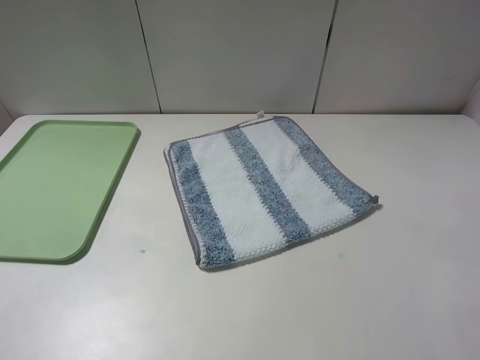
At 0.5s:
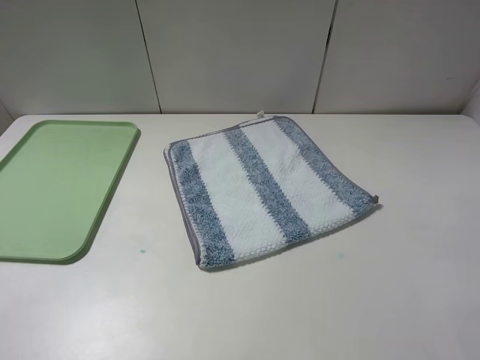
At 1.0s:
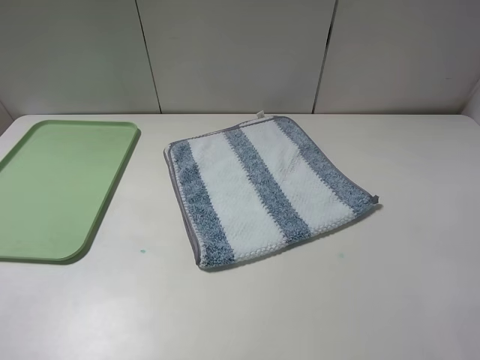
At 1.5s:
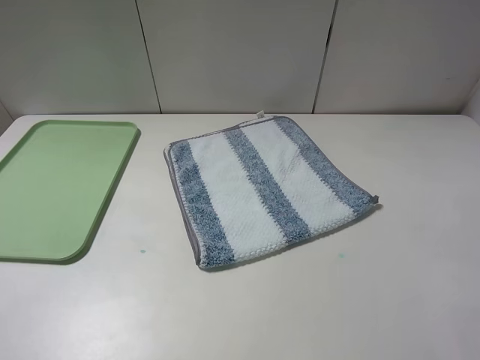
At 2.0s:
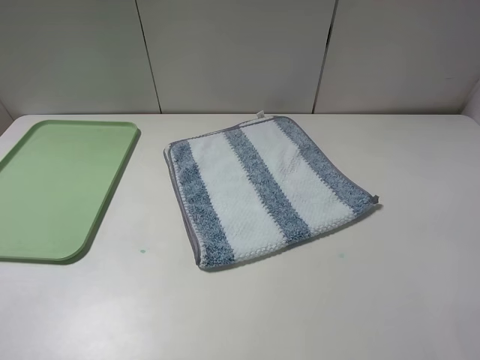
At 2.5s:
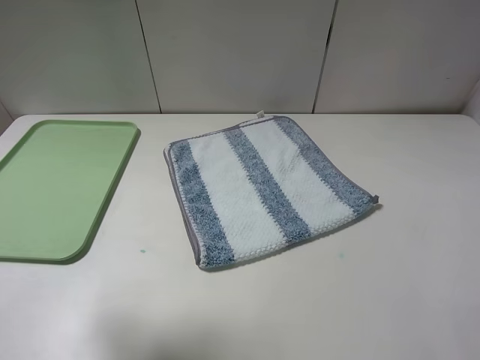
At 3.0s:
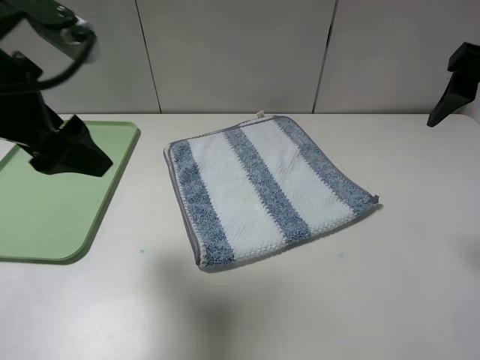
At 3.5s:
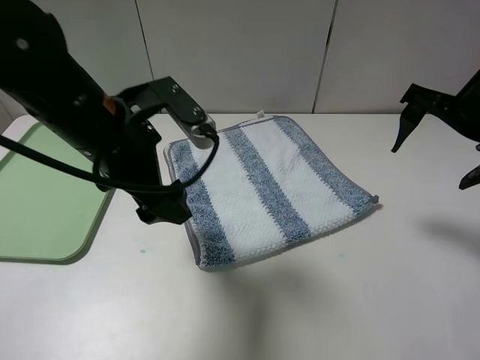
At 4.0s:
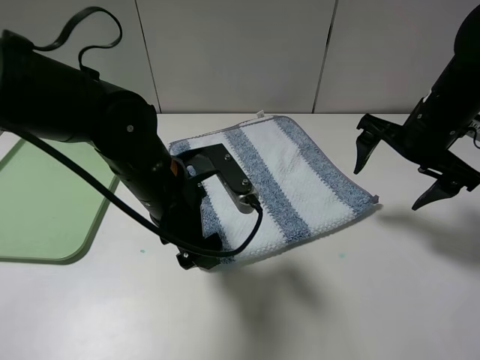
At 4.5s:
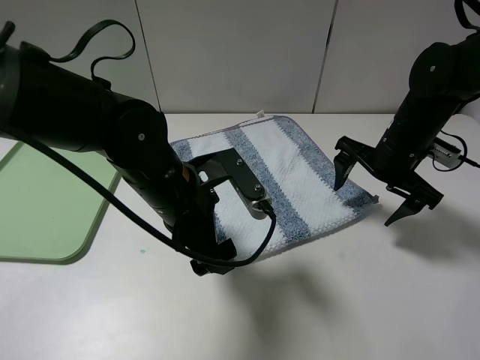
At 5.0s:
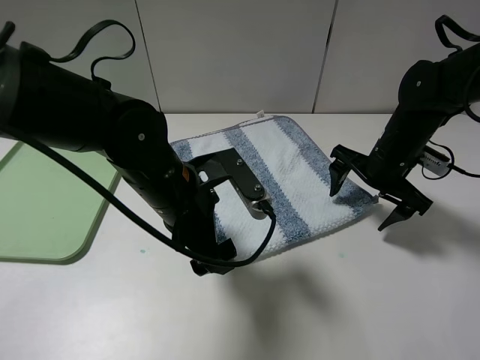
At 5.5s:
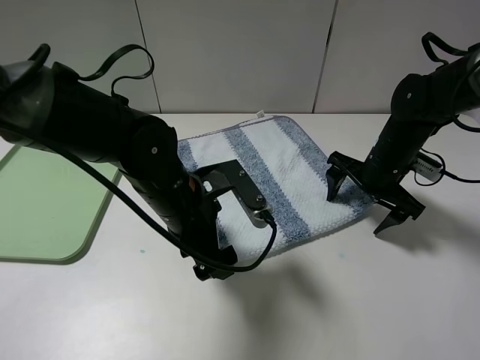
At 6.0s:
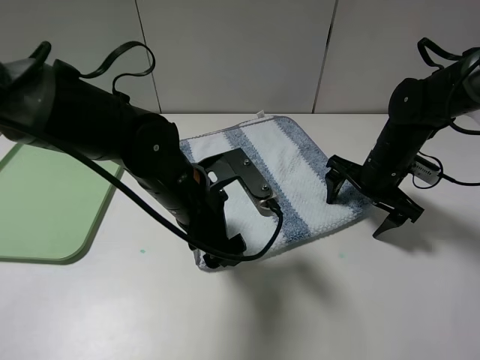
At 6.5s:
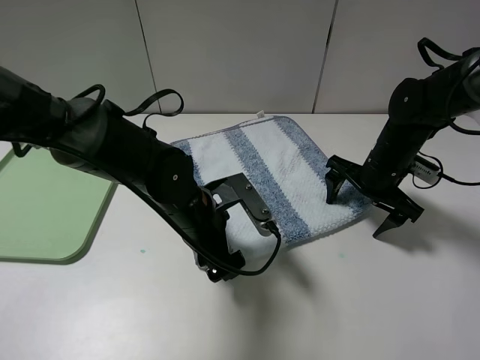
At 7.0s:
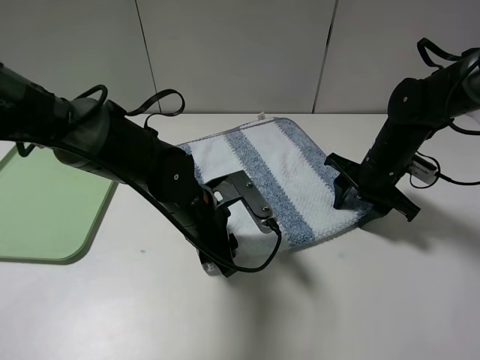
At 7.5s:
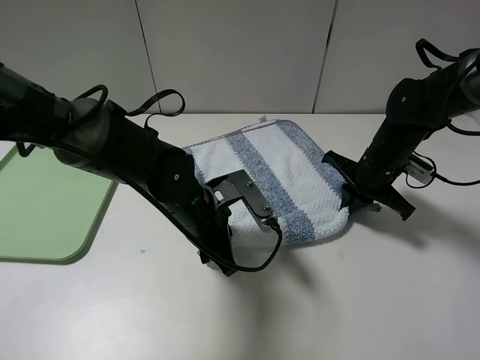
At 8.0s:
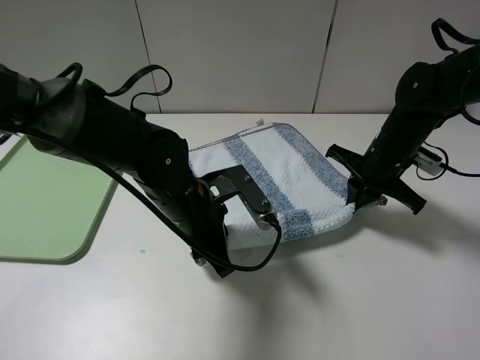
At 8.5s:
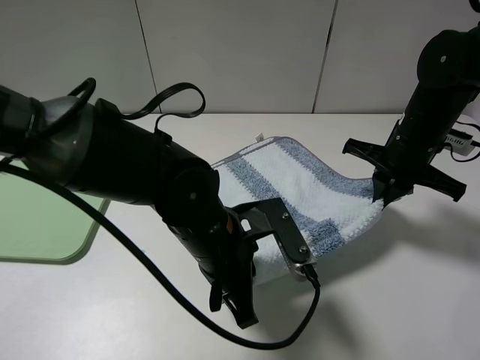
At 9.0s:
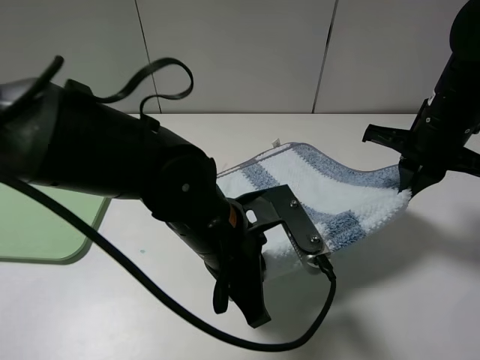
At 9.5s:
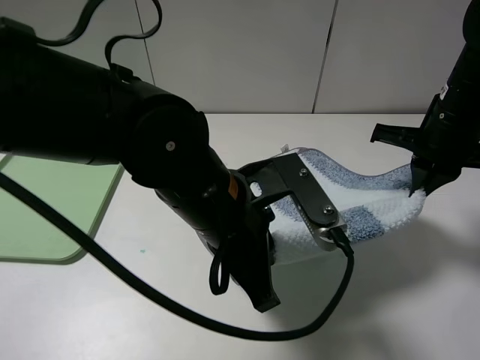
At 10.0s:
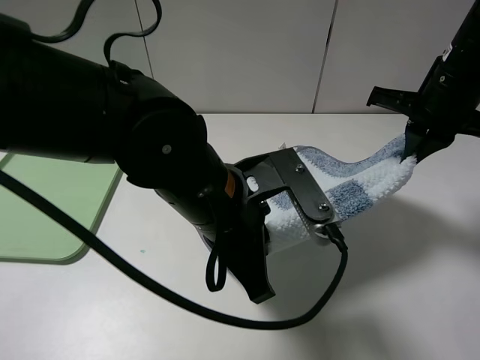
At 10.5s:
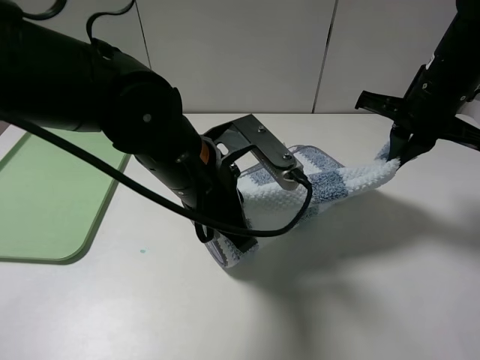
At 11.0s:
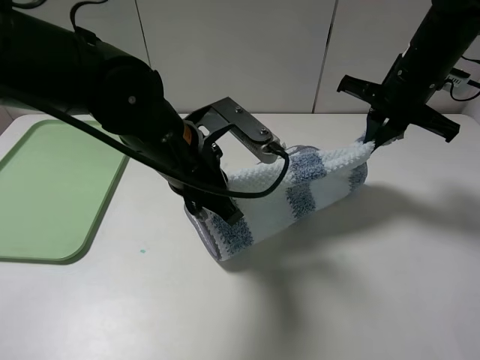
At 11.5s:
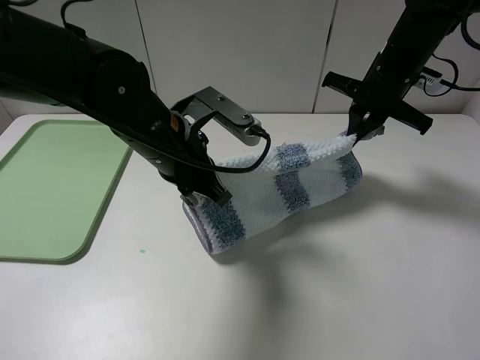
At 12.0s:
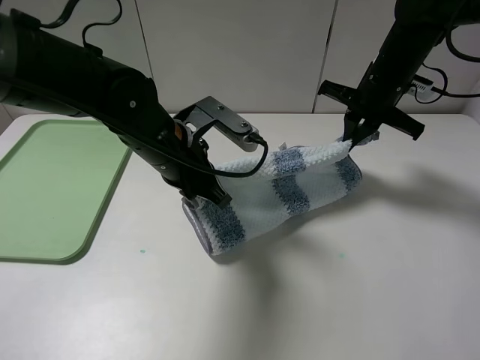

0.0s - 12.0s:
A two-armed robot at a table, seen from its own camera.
Step, 0.0s - 7.0s: Grasp the blue white towel with the left gripper.
2.0s - 4.0s: The right gripper heads forward and downward, covering roughly 30 cm, while the left gripper moves to the right, forward and downward, about 35 cm.
4.0s - 6.0s: The right gripper goes roughly 10 cm downward.
6.0s - 8.0s: The right gripper closes, while the left gripper closes up.
8.0s - 10.0s: The left gripper is displaced upward and backward by some 10 cm. Meanwhile the right gripper is displaced upward by some 15 cm.
10.0s - 12.0s: The right gripper moves forward, approximately 10 cm; the left gripper shifts about 10 cm forward and to the left.

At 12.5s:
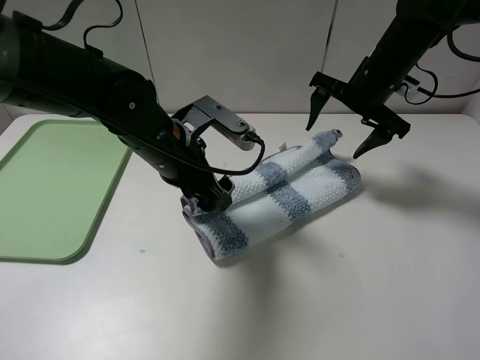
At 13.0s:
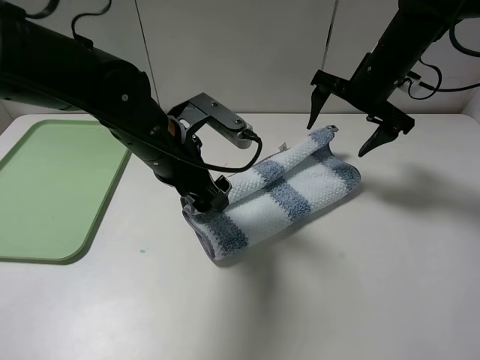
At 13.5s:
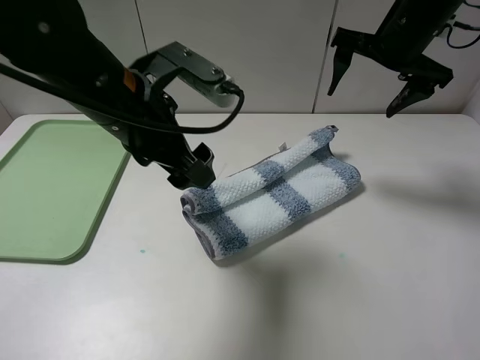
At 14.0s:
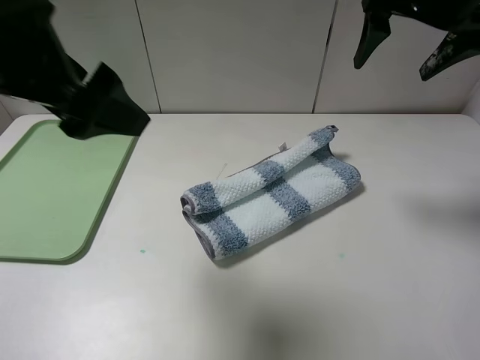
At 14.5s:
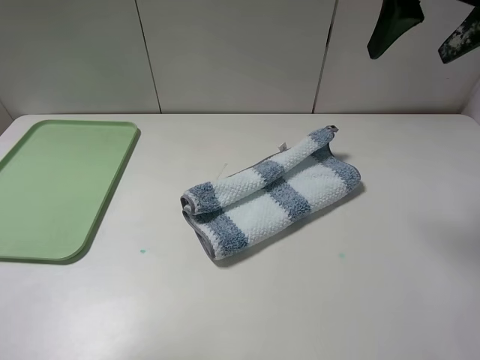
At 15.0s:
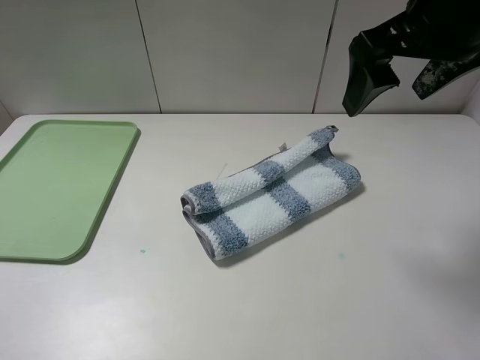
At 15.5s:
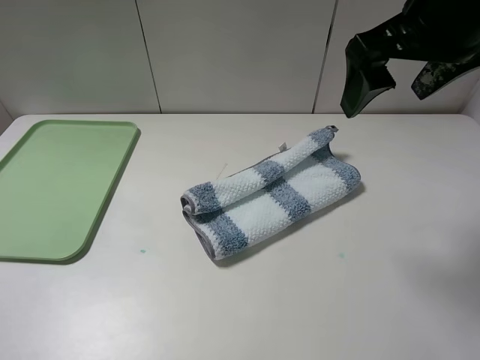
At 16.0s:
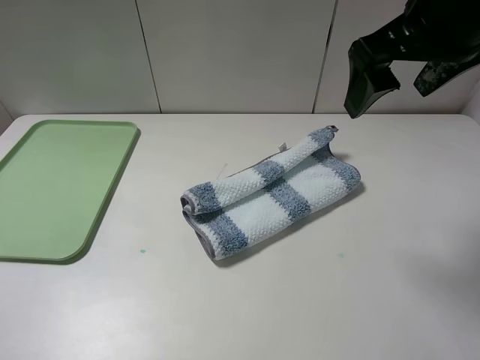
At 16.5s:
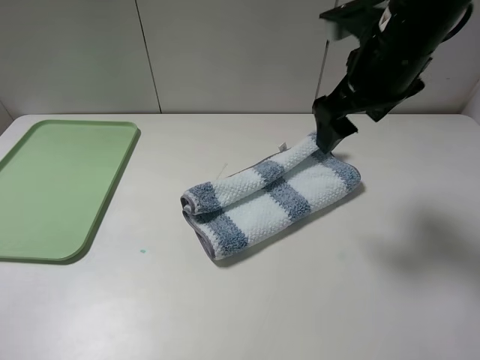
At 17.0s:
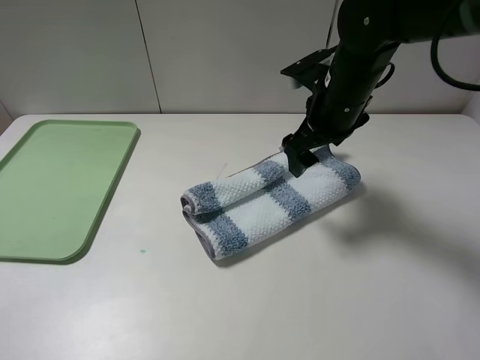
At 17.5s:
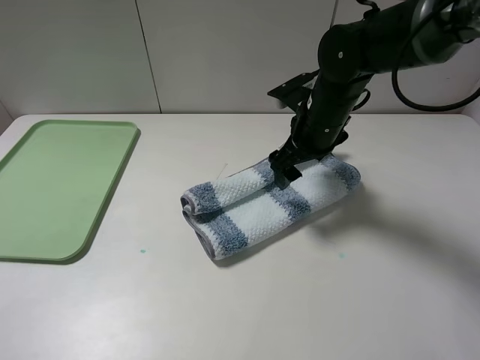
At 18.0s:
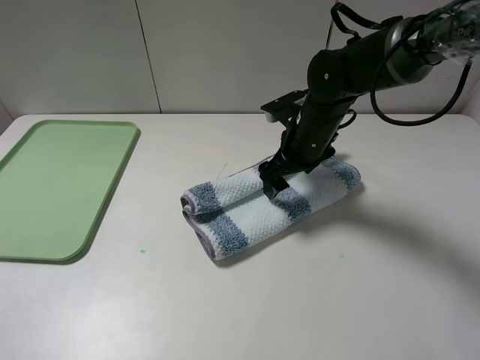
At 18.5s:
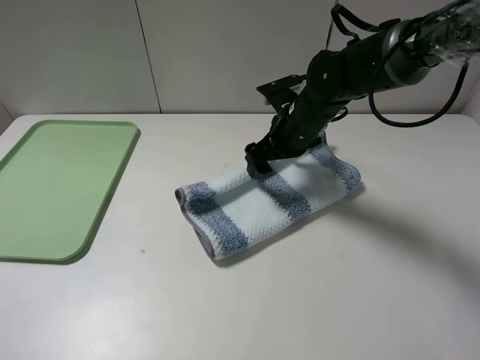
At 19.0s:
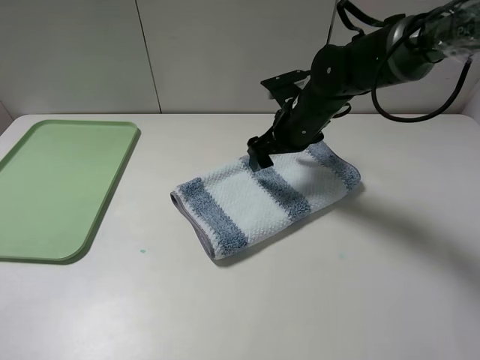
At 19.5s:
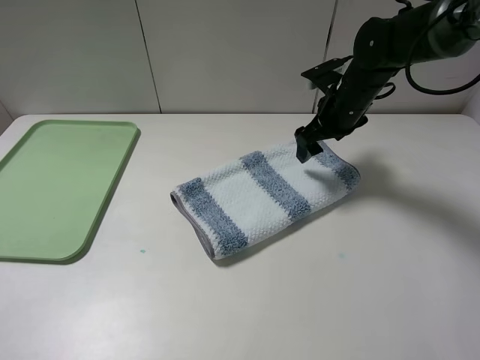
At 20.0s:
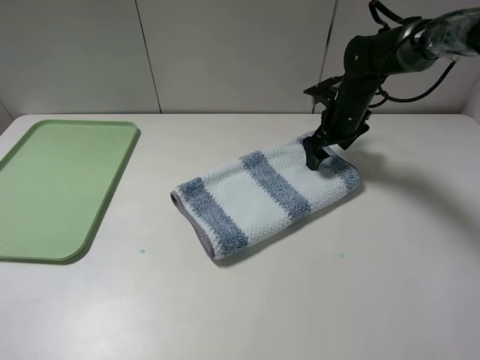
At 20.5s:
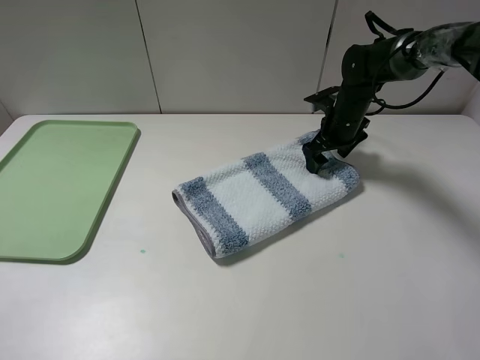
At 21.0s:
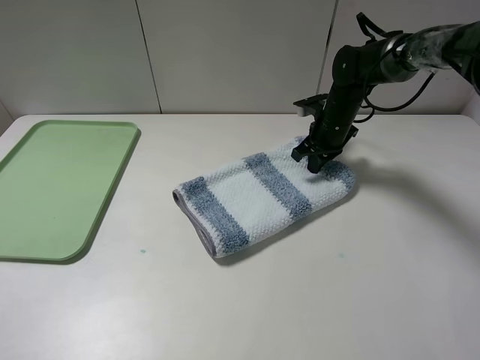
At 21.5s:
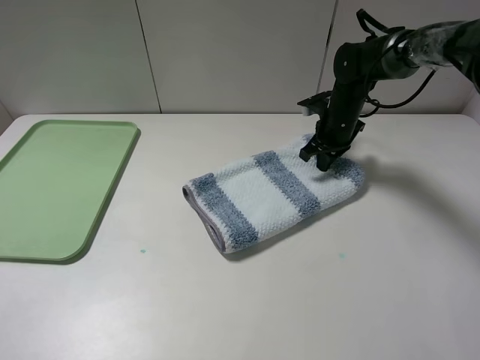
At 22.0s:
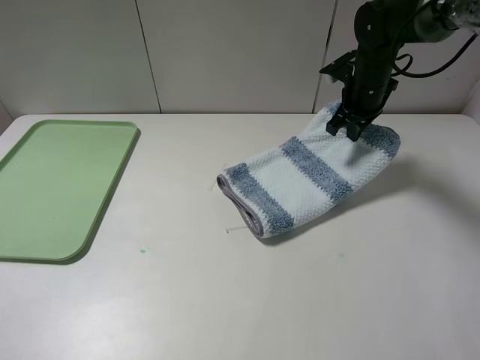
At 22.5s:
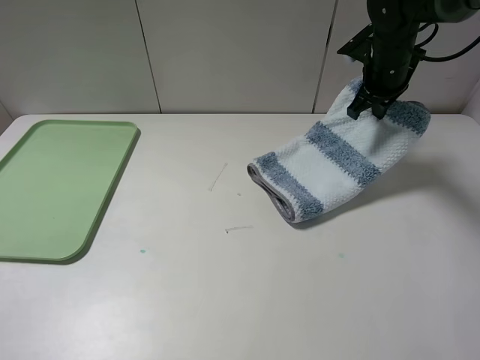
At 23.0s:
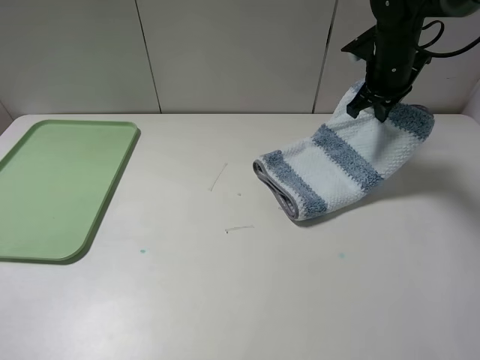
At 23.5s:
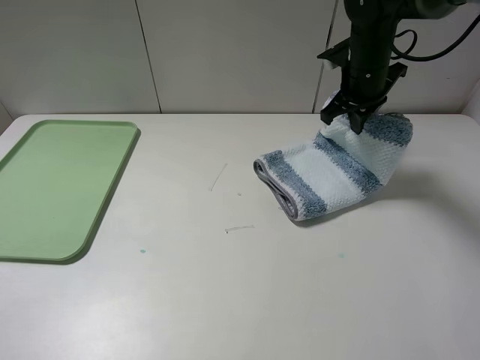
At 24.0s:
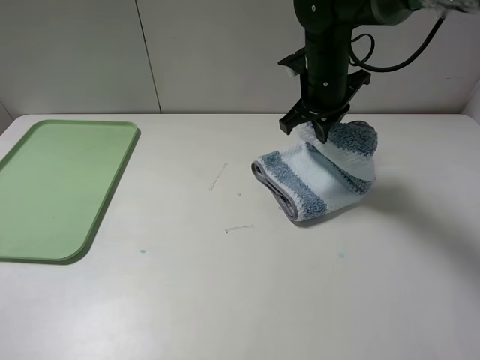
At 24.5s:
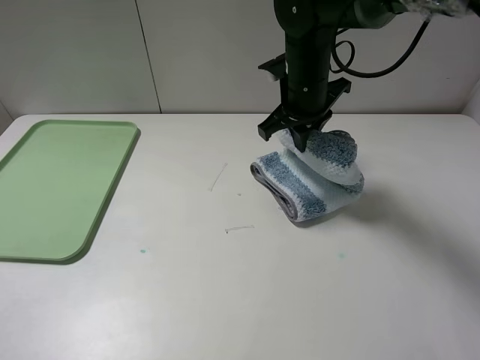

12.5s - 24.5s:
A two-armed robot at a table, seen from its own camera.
Step, 14.0s - 21.0s: Grasp the blue white towel with the right gripper.
12.5s - 14.5s: The right gripper travels upward and backward by some 20 cm; the left gripper shifts about 35 cm upward, backward and to the left.
14.5s - 16.5s: The right gripper shifts some 10 cm downward and to the left.
16.5s - 18.5s: The right gripper goes about 15 cm downward and forward.
18.5s - 20.5s: The right gripper goes approximately 15 cm to the right, forward and downward.
20.5s - 22.5s: The right gripper travels upward by approximately 10 cm, and closes up.
22.5s - 24.5s: The right gripper heads to the left and backward, covering approximately 15 cm, and opens.

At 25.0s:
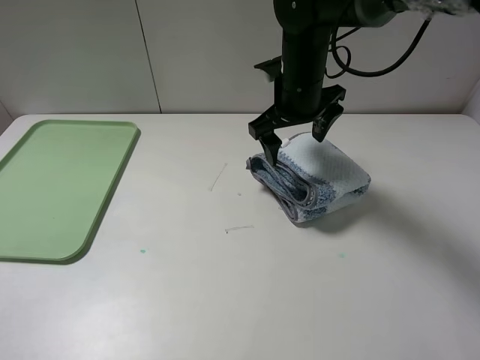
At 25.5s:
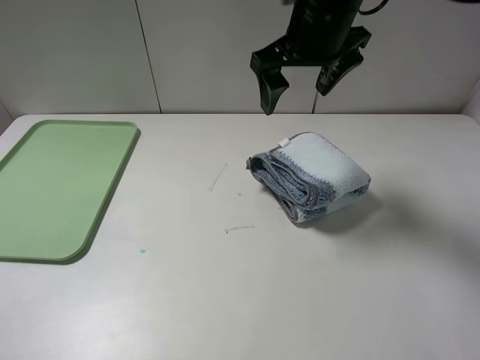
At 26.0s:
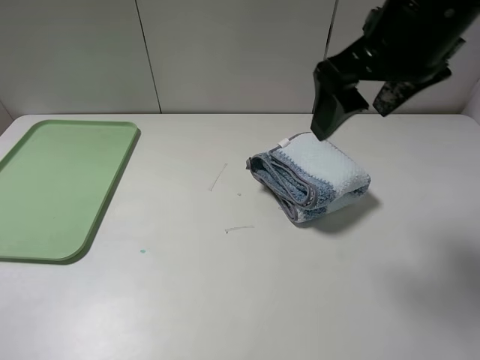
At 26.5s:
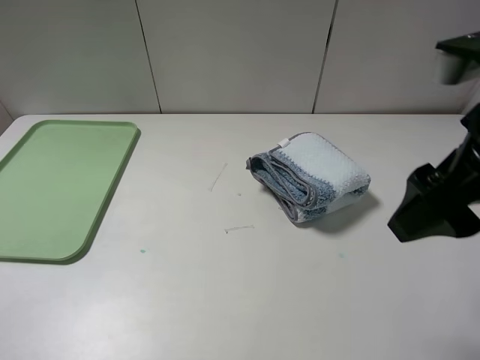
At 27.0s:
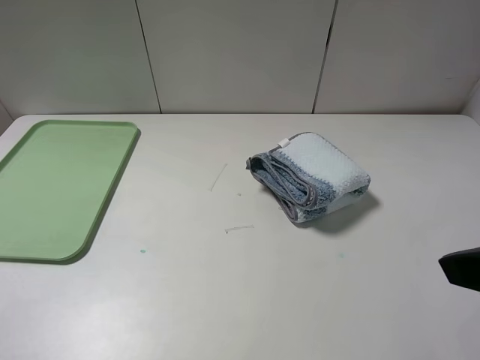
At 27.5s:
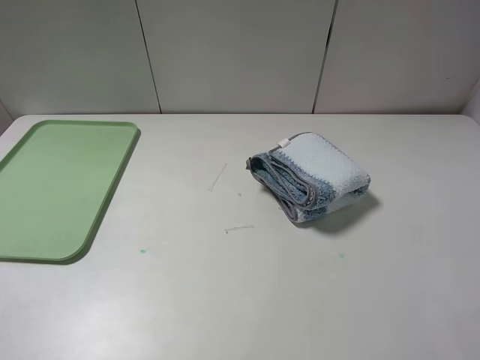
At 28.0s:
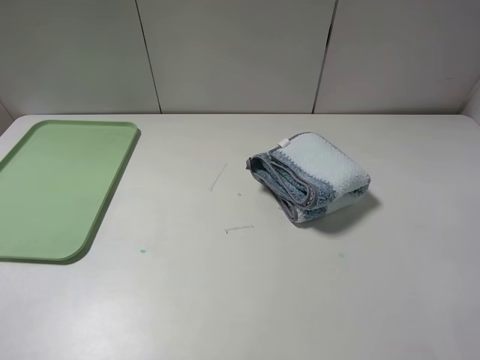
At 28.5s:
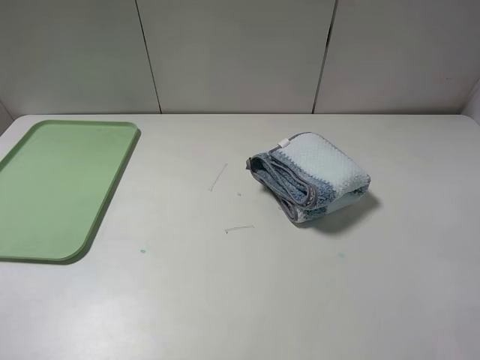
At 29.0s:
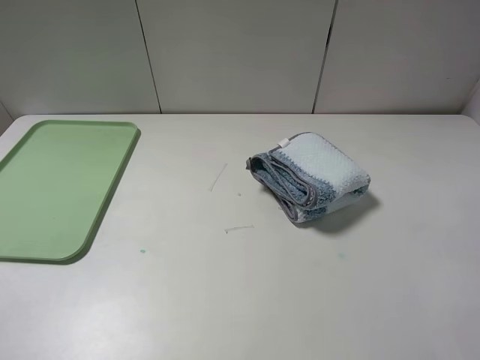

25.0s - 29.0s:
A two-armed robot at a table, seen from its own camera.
25.0s - 27.0s: The right gripper heads backward and to the right, covering approximately 35 cm.
27.0s - 29.0s: The right gripper heads backward, covering roughly 10 cm.
